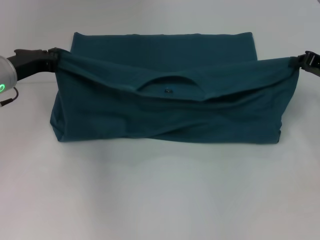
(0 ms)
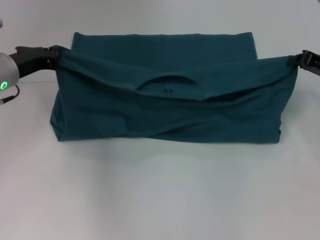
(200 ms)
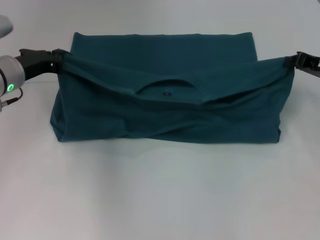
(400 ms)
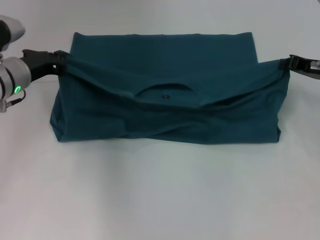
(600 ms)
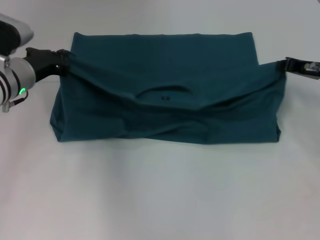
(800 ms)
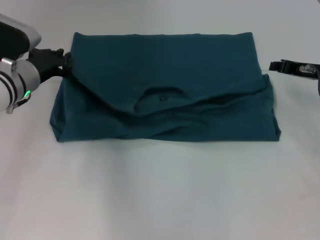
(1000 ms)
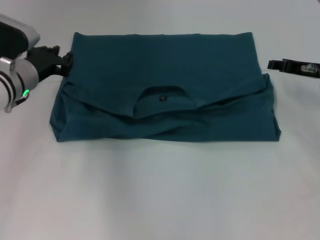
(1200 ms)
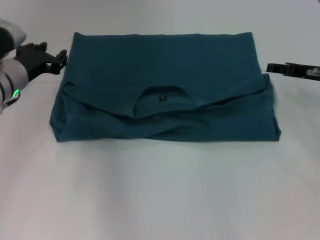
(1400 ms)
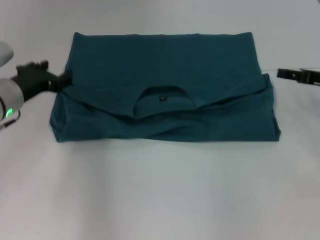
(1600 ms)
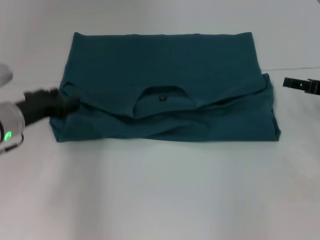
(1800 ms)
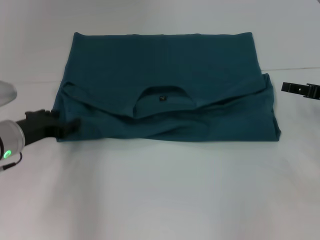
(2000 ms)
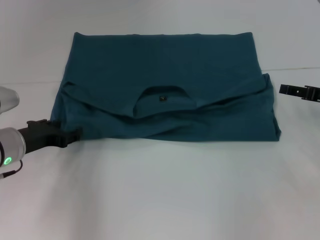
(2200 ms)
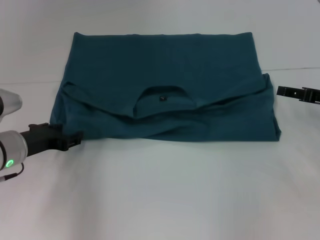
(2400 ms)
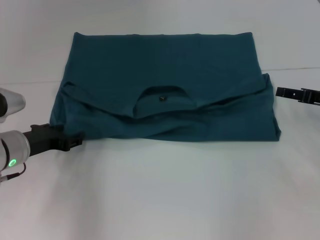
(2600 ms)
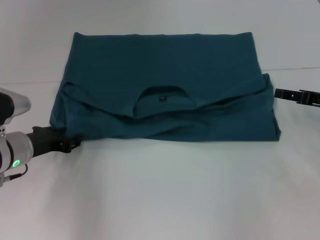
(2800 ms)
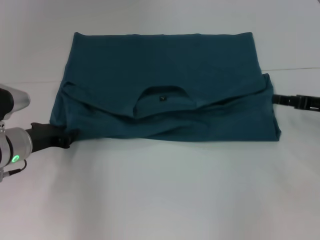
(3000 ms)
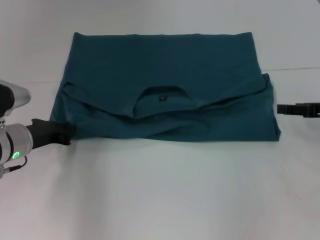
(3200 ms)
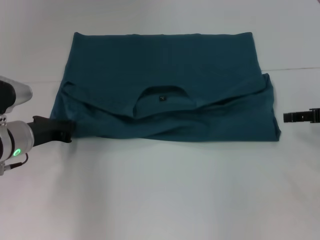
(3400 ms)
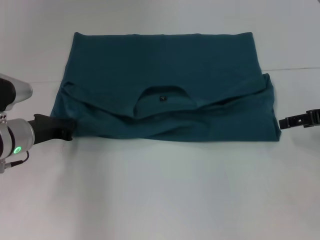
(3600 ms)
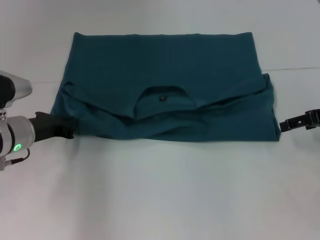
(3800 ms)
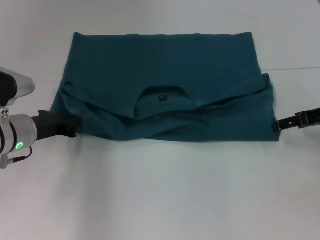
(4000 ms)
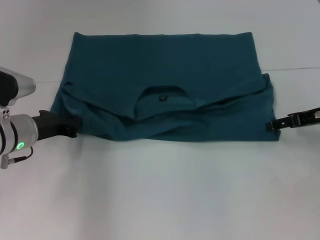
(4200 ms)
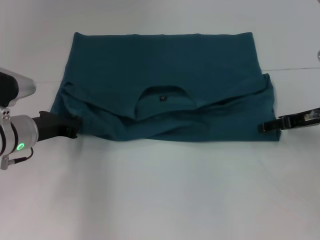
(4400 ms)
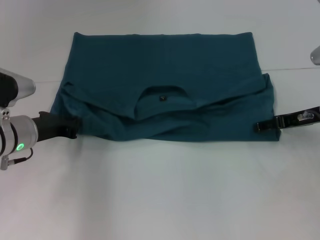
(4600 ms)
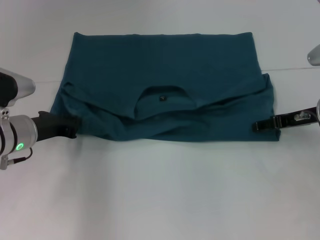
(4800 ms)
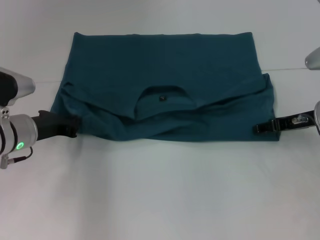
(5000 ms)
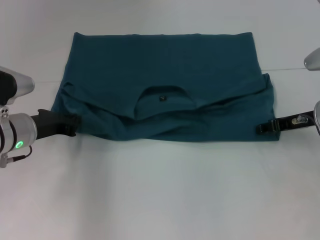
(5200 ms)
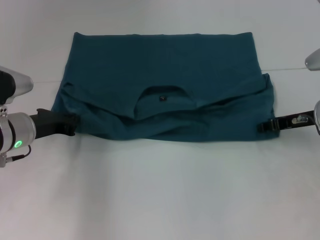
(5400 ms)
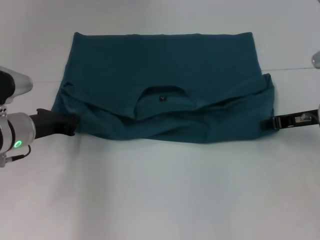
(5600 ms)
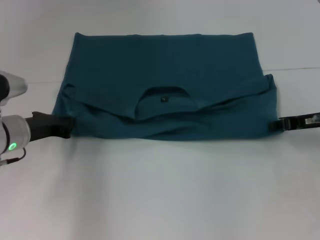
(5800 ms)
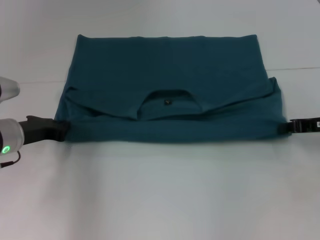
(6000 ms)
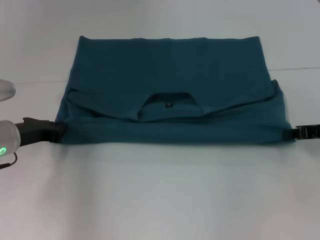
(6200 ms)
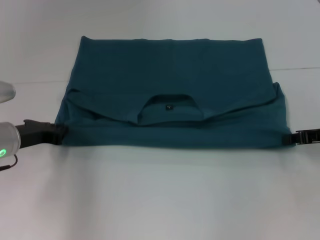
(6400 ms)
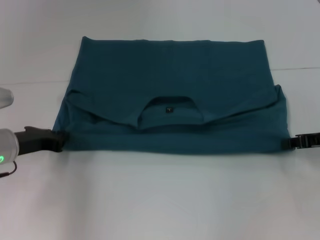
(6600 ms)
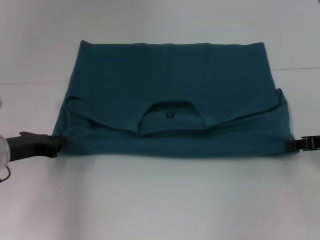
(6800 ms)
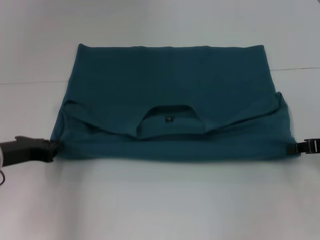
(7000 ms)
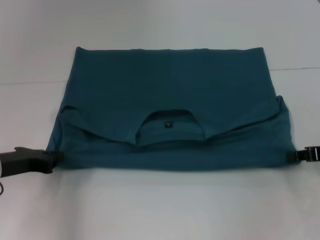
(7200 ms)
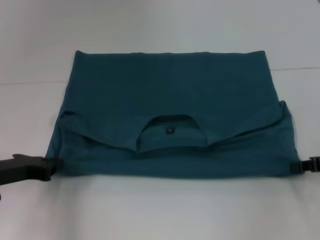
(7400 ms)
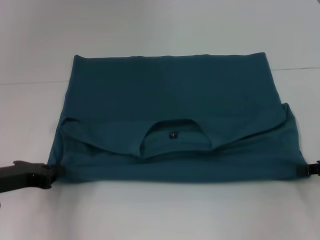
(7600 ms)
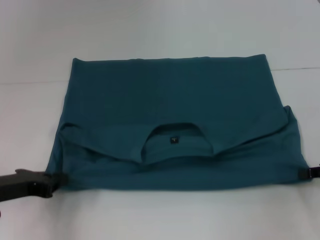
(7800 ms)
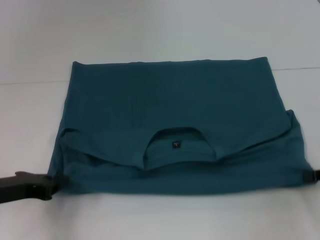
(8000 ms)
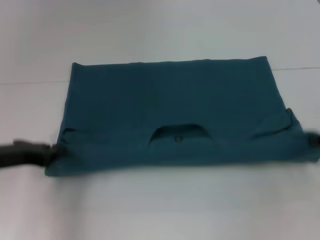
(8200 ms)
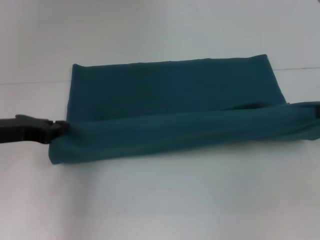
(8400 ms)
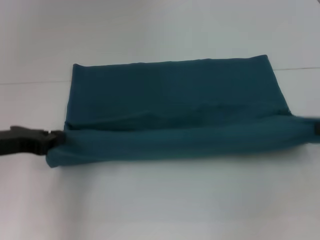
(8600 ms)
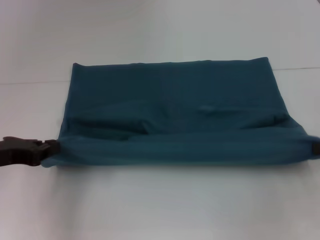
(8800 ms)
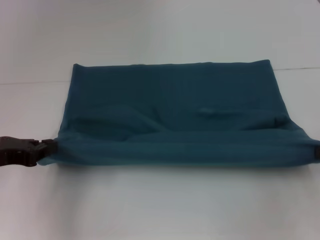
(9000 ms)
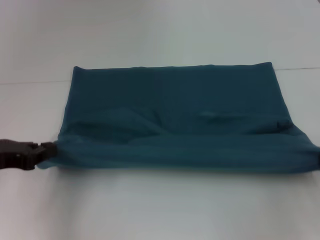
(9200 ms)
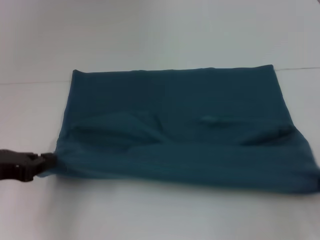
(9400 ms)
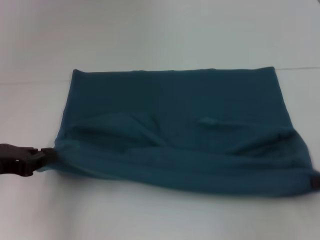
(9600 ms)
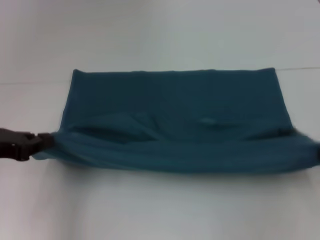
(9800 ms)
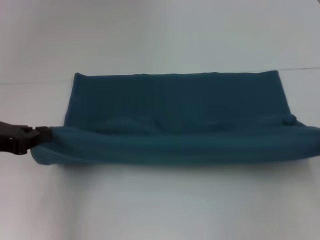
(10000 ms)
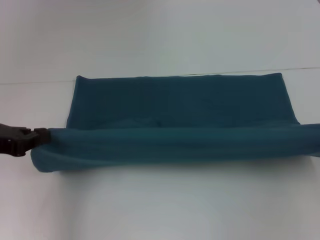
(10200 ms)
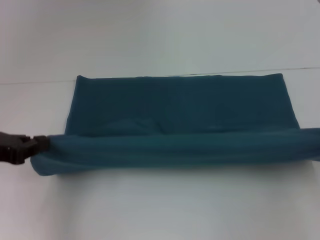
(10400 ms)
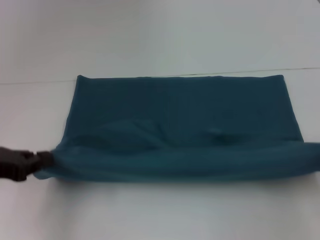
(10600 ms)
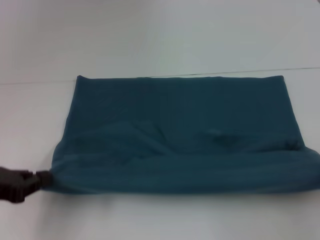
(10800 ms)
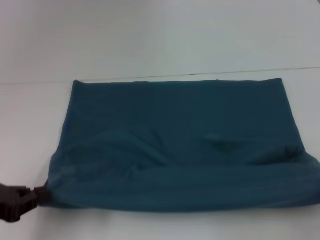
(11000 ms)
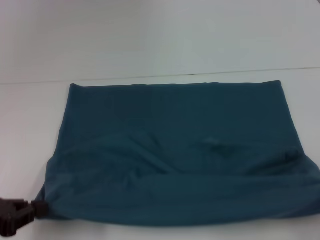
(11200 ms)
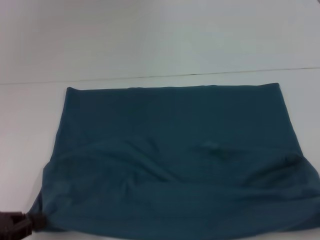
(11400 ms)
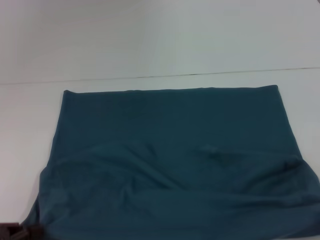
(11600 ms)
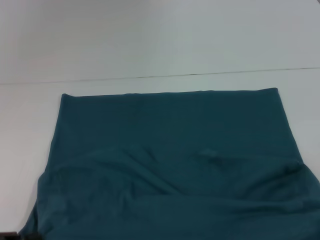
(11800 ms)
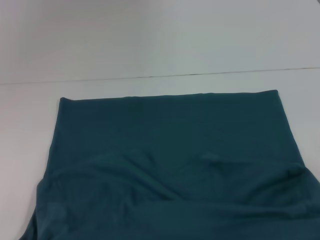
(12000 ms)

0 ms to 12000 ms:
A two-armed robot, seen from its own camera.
Step, 1400 ms to 12000 ms: Pull the clothes with your left hand.
Step, 1400 ms to 12000 ms: Pull the clothes with your right hand.
0 ms to 1600 ms: The right gripper opens its fingers, while the left gripper opens up.
1600 ms to 3000 ms: The left gripper is displaced downward by about 5 cm.
3000 ms to 4400 ms: The left gripper closes its fingers.
4400 ms to 6000 ms: The right gripper closes its fingers.
6000 ms to 7600 ms: Both grippers move backward, about 5 cm.
7600 ms to 9000 ms: Both grippers travel together upward, about 5 cm.
9000 ms to 10400 ms: The grippers stay close to where they were, moving slightly.
10400 ms to 12000 ms: The two grippers go some 15 cm backward and downward.

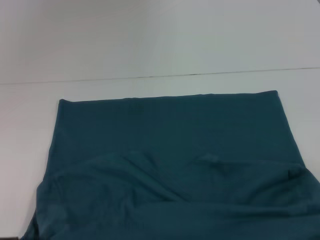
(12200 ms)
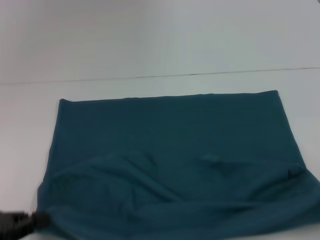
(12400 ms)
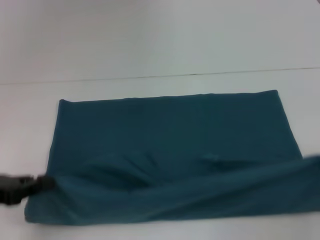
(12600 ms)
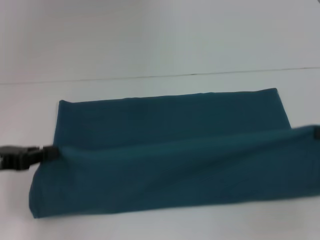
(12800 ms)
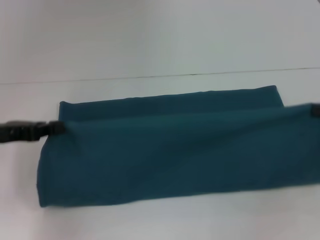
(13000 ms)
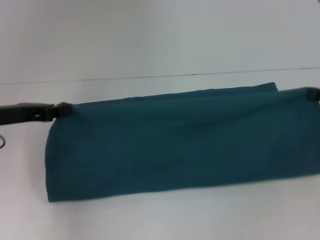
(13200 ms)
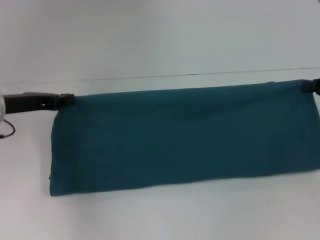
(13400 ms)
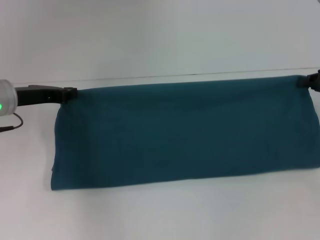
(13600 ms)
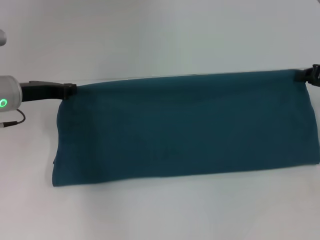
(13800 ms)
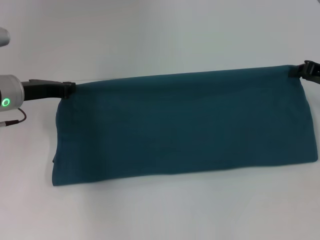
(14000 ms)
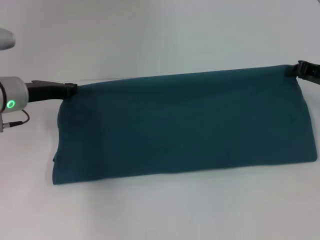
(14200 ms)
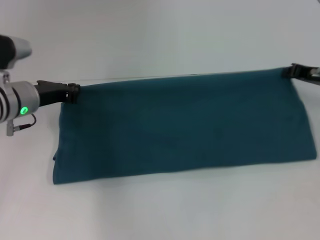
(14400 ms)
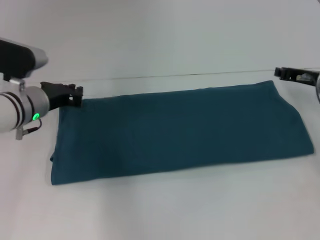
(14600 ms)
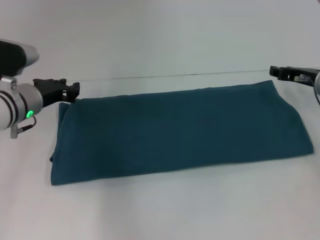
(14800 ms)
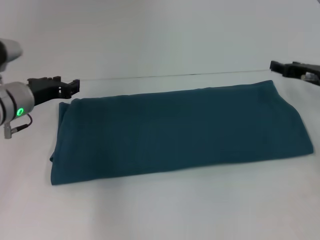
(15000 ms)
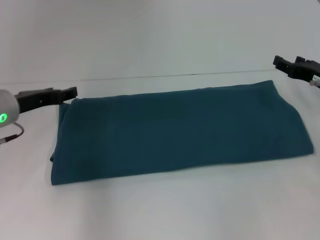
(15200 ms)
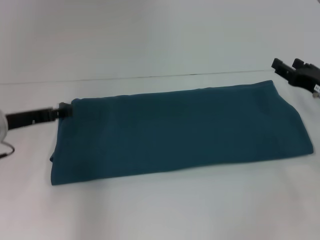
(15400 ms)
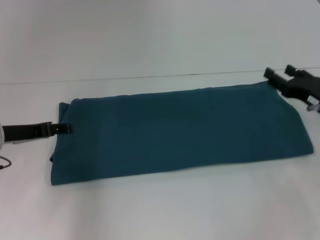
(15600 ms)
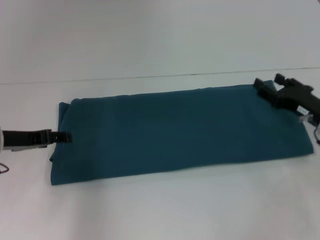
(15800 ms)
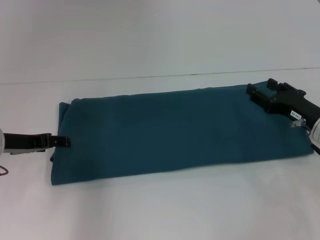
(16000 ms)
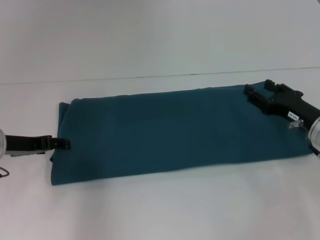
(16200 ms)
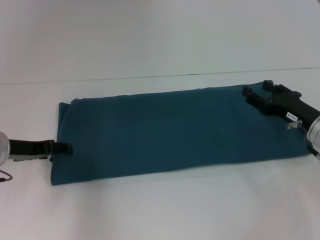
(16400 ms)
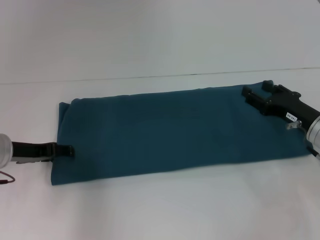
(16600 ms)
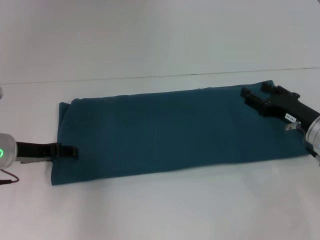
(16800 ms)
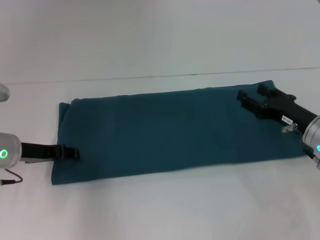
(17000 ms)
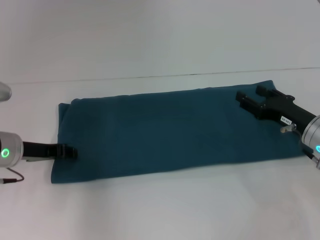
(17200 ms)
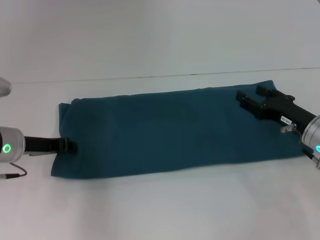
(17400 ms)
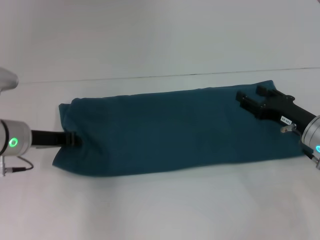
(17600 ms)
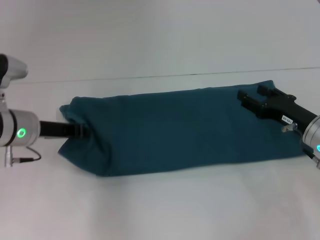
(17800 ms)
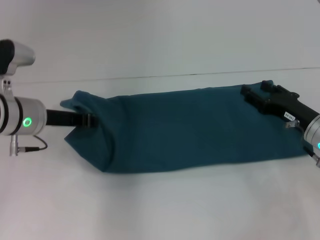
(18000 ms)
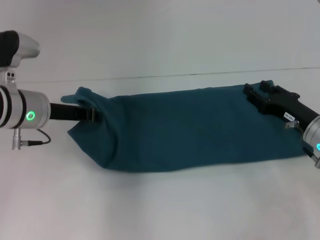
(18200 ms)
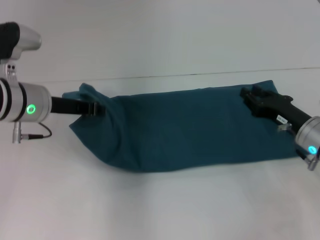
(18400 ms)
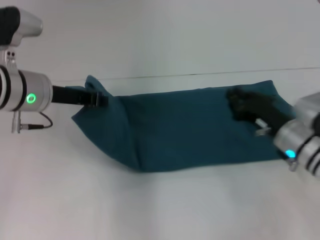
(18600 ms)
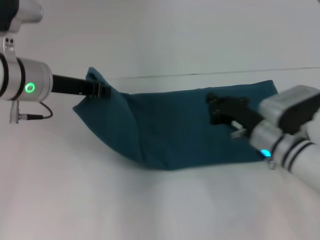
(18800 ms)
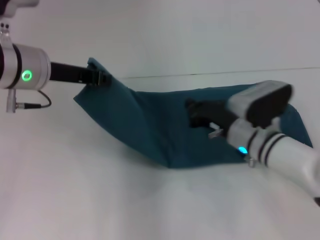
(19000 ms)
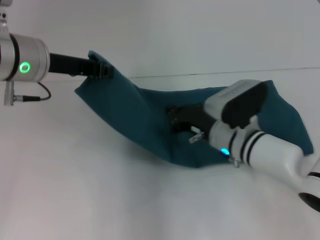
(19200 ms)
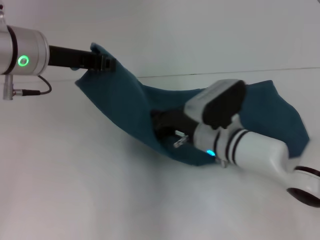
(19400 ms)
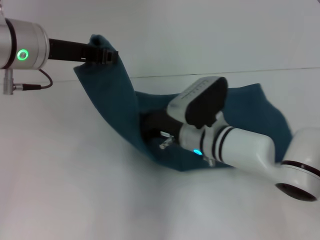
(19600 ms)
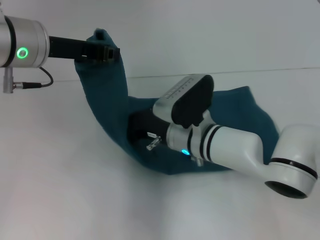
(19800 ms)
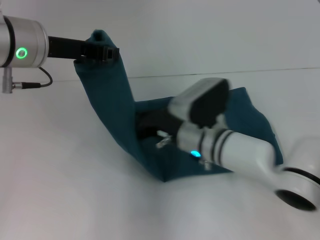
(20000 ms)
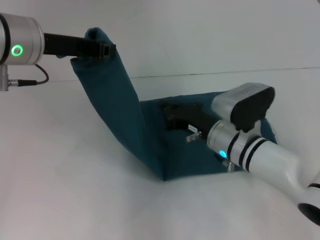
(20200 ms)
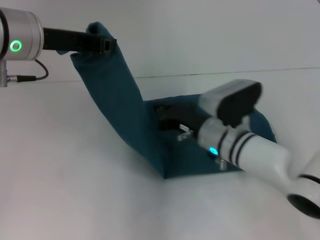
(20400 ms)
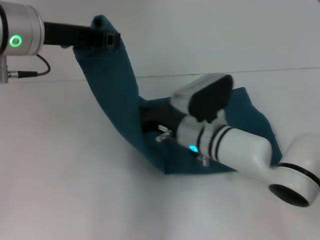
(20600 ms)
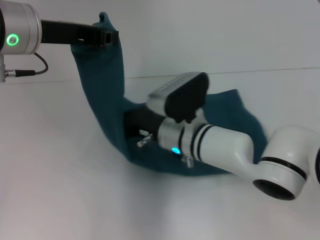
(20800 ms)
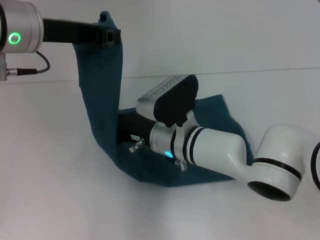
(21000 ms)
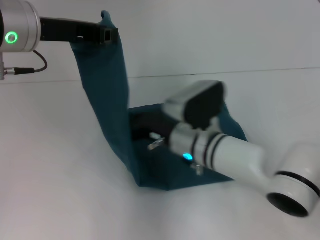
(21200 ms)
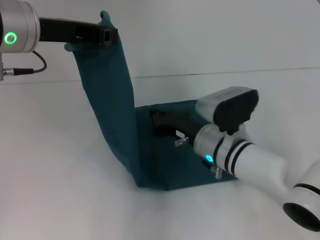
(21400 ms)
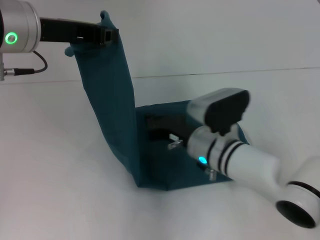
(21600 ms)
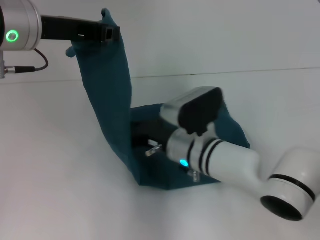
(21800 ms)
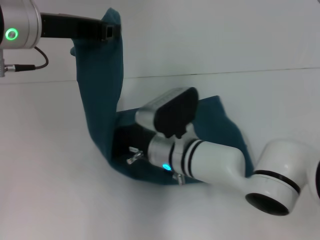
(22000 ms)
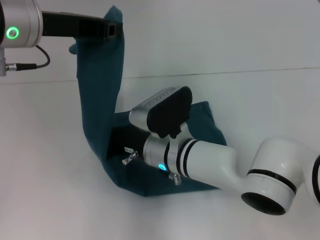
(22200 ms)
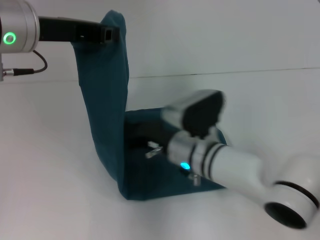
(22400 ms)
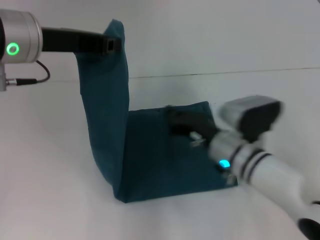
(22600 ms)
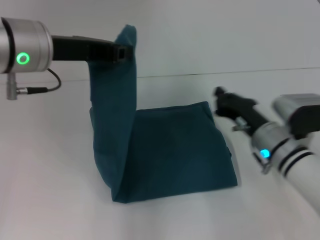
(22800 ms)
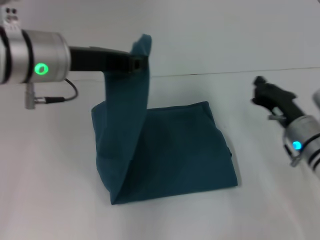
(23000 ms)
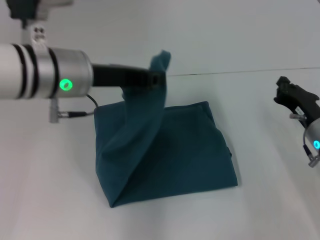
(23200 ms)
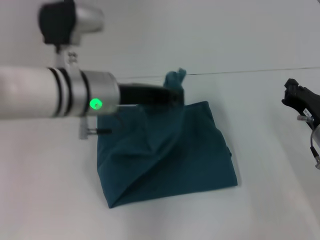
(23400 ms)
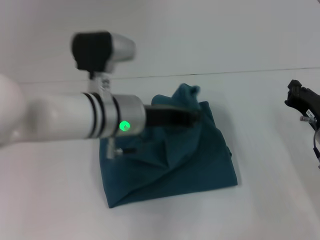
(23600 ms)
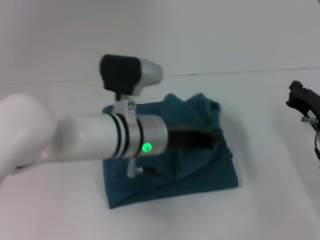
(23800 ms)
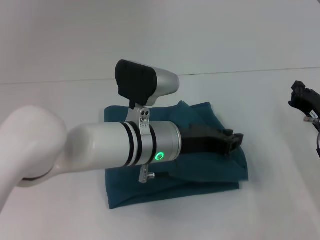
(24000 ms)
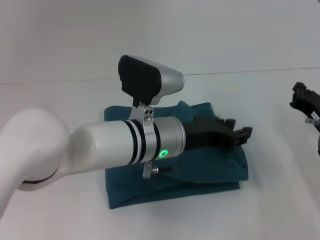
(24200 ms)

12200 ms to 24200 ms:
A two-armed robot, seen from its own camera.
Step, 12200 ms to 14800 ms: Fold the clothes to the left.
Step, 12200 ms to 14800 ms: Fold the clothes to the right.
Step, 15000 ms to 22400 ms: Press the middle of the clothes with your right hand.
12200 ms to 13800 ms: Both grippers travel together forward, about 25 cm.
13800 ms to 15200 ms: The right gripper ends up approximately 5 cm from where it was, and opens its fingers; the left gripper opens up.
15200 ms to 16600 ms: The right gripper ends up some 5 cm from where it was; the left gripper opens its fingers.
16600 ms to 18200 ms: The left gripper moves to the right and upward, approximately 10 cm, and closes.
18200 ms to 19800 ms: The left gripper travels upward by about 10 cm, while the right gripper shifts roughly 20 cm to the left, and closes.
19800 ms to 21200 ms: The right gripper travels to the right and back again, some 5 cm each way.
21200 ms to 22600 ms: The right gripper swings left and right, about 10 cm each way, with 2 reversals.
22600 ms to 24200 ms: The right gripper moves to the right, approximately 15 cm, while the left gripper shifts some 20 cm to the right and downward.
